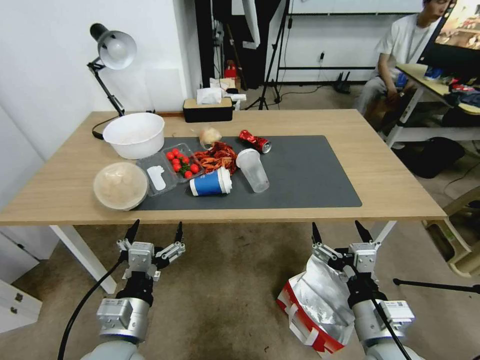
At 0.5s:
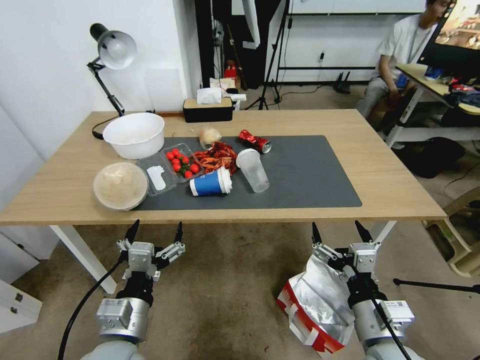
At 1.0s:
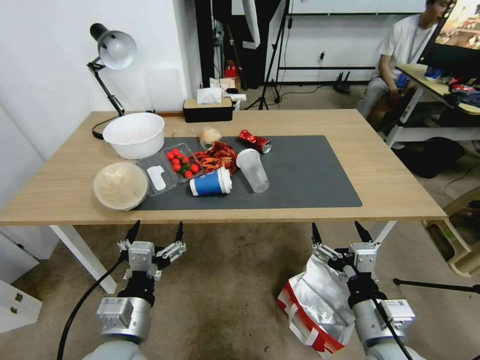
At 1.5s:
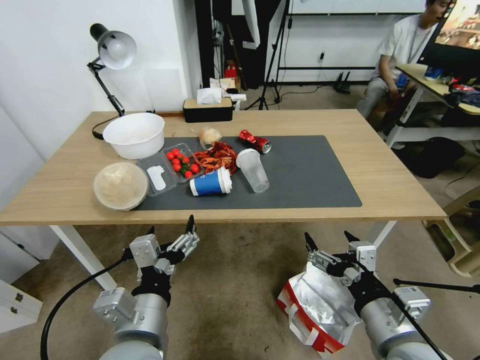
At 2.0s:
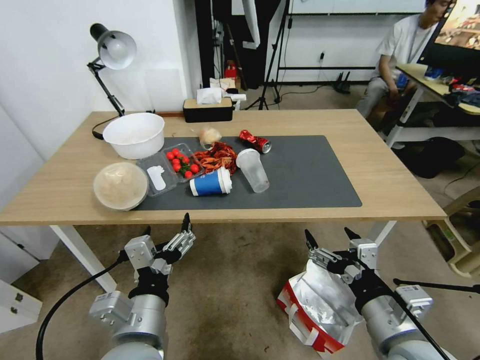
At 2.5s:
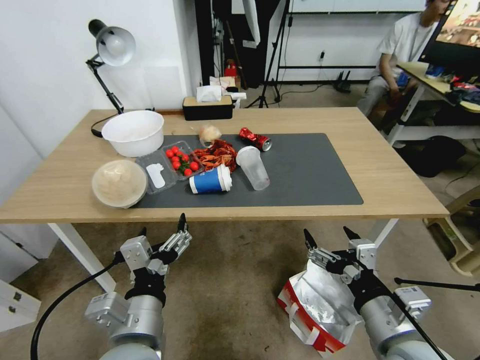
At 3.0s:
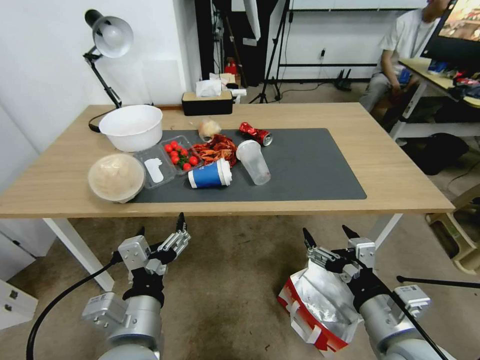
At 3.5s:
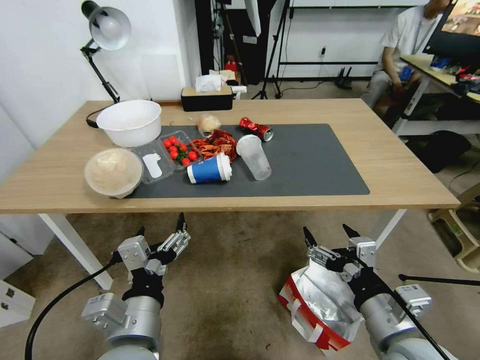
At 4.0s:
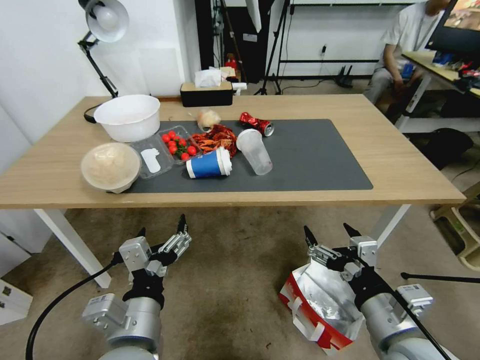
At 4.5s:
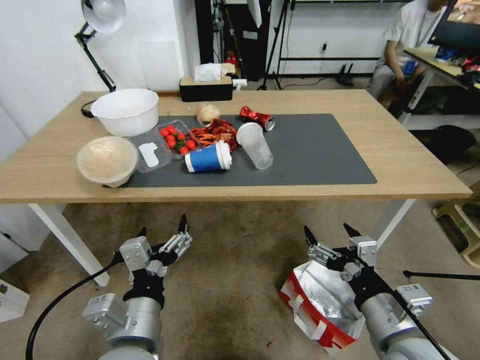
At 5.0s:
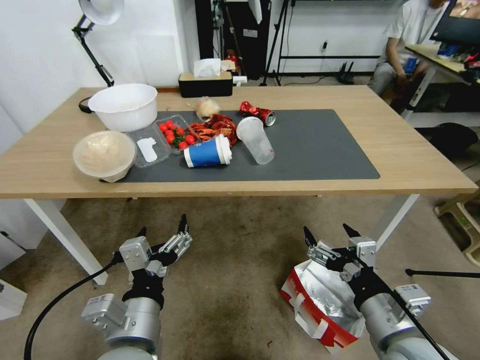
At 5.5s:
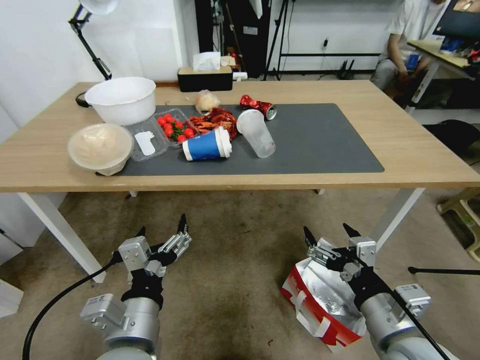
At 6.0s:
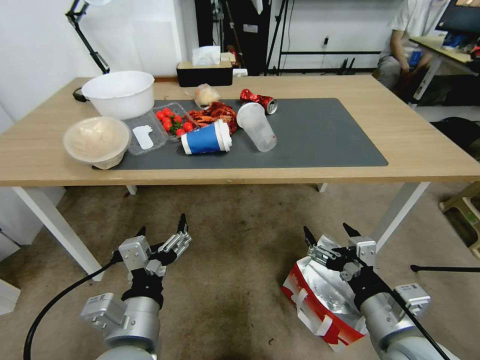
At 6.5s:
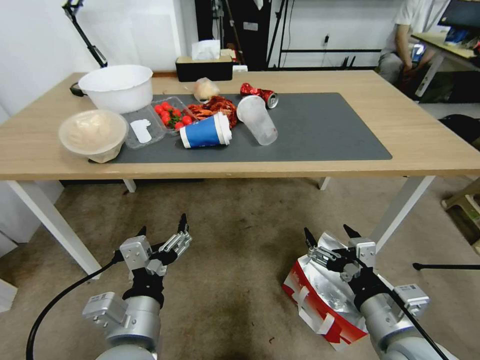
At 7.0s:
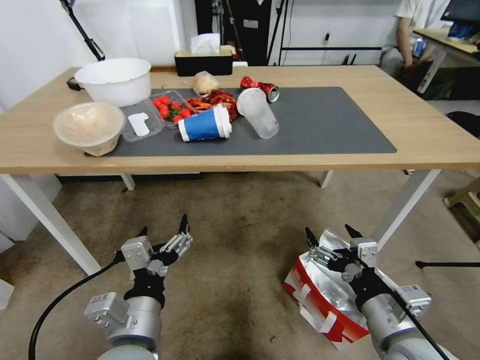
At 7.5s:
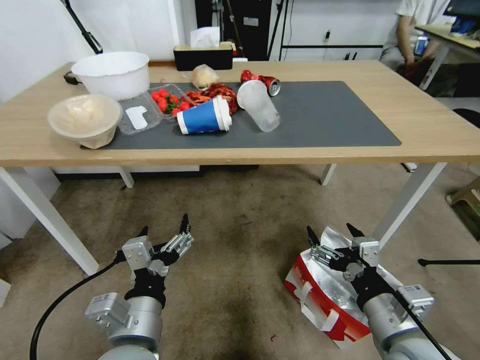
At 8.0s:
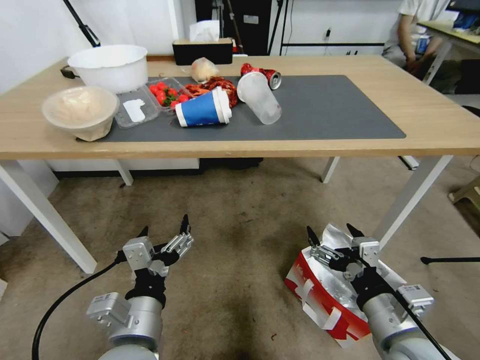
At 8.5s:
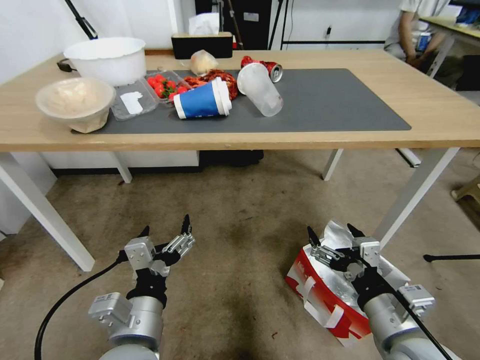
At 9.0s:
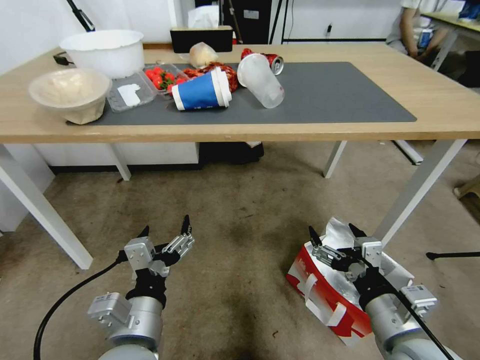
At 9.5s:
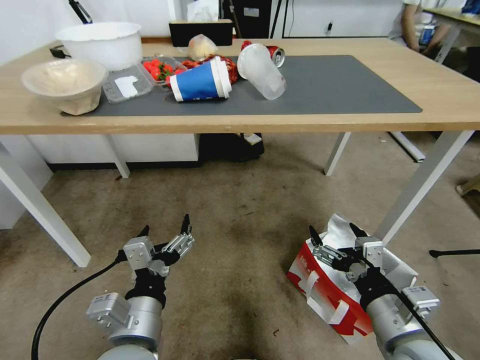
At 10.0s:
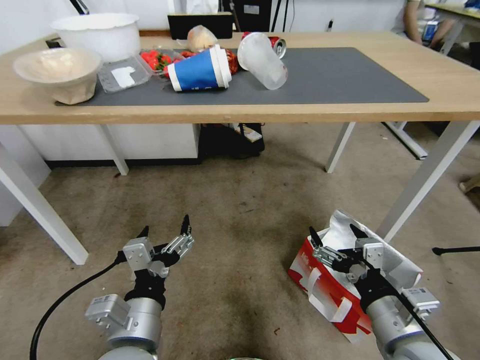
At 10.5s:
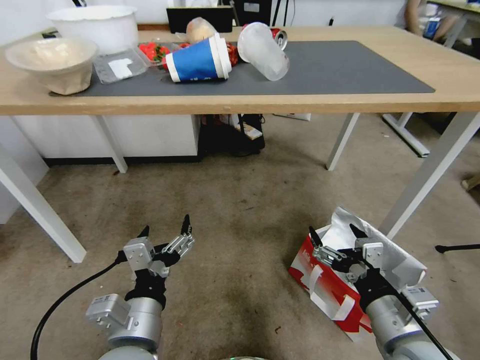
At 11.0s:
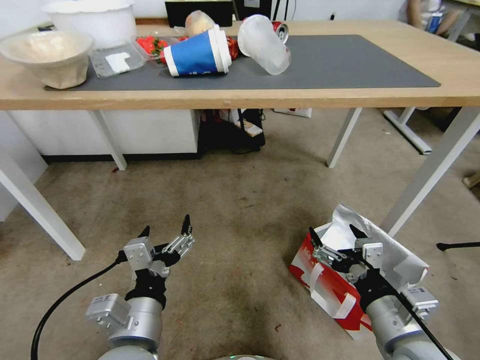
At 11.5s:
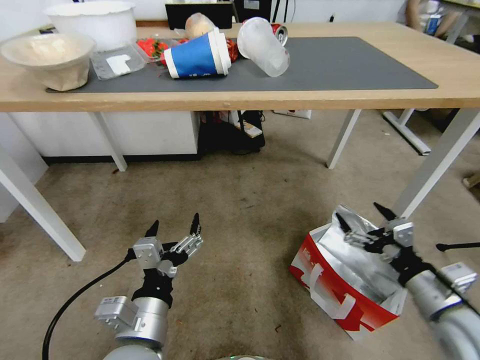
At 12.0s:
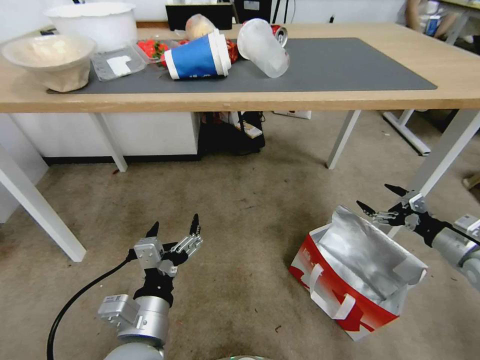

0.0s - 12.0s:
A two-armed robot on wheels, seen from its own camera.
Task of the whole recording: Pick up the food delivery bag from the floor and place it on the table.
10.0s - 12.0s: The right gripper travels to the right and forward by some 30 cm.

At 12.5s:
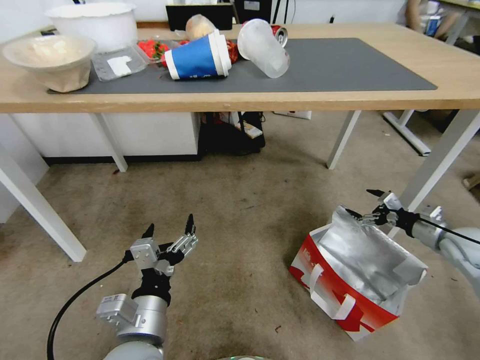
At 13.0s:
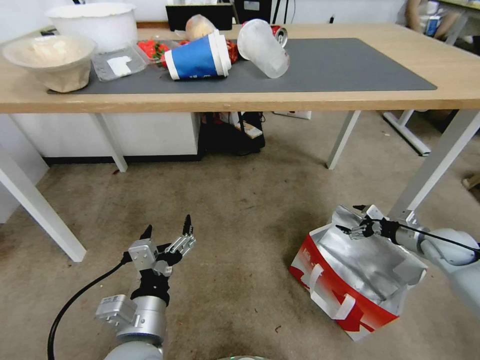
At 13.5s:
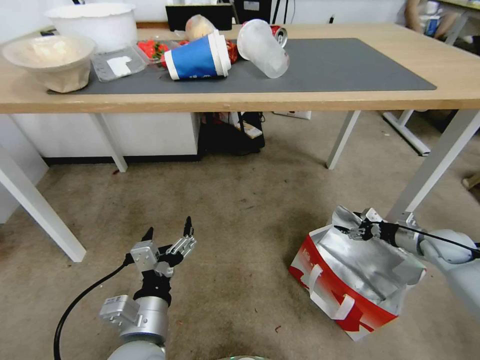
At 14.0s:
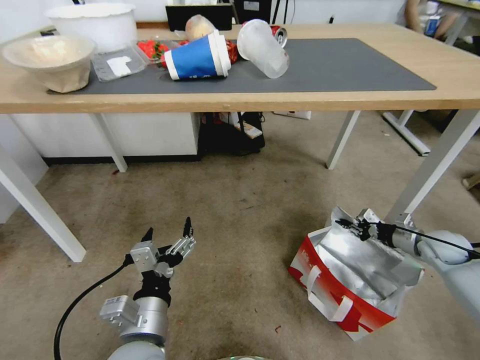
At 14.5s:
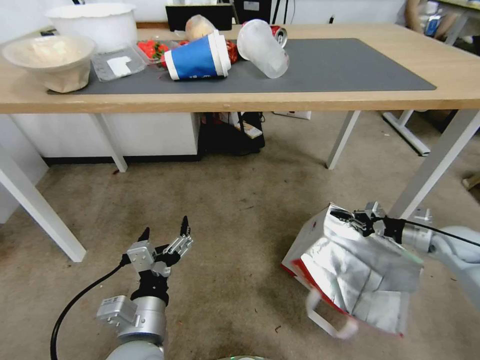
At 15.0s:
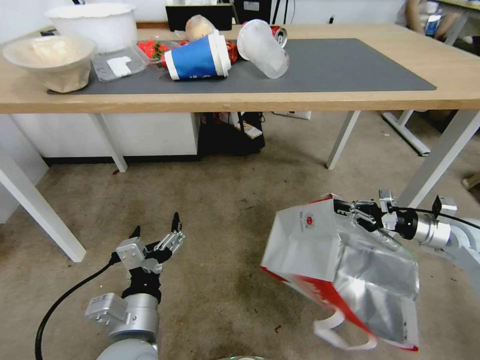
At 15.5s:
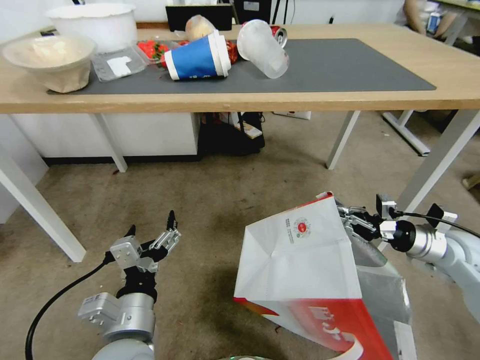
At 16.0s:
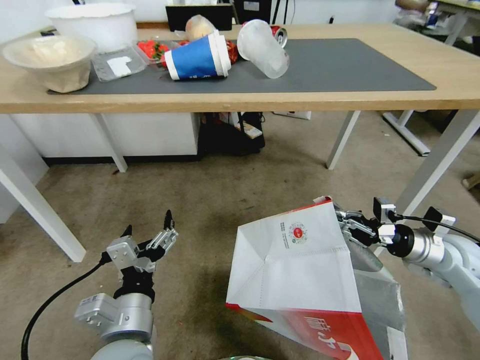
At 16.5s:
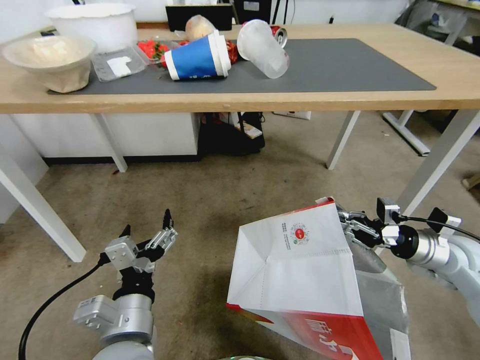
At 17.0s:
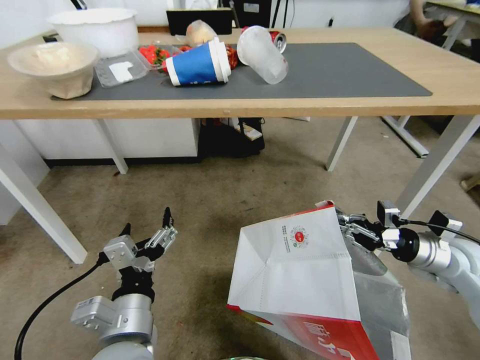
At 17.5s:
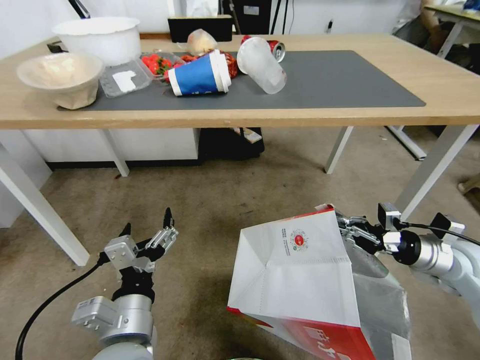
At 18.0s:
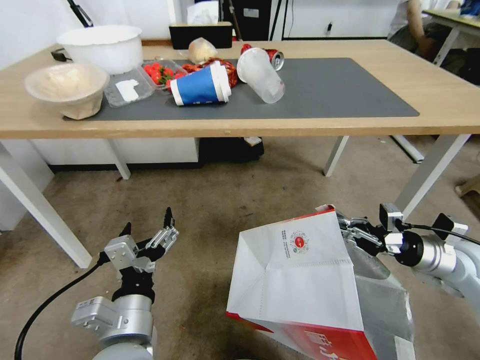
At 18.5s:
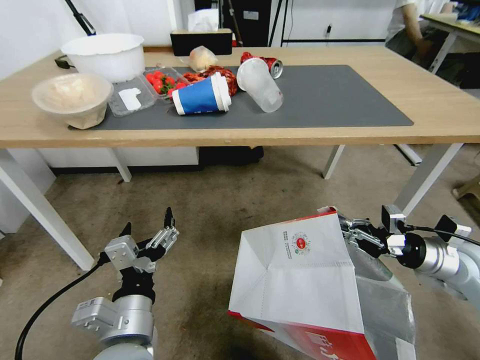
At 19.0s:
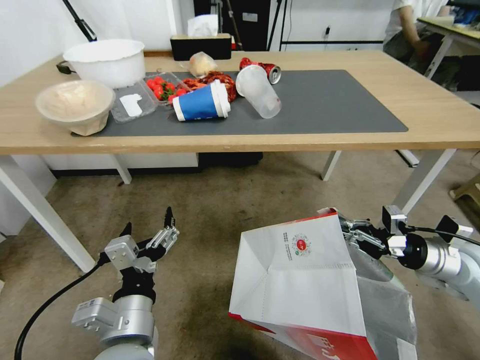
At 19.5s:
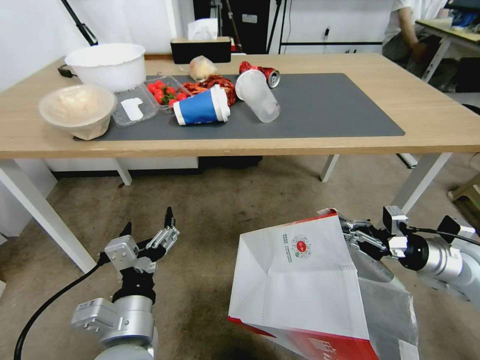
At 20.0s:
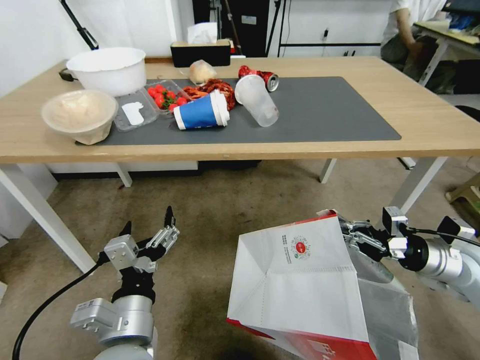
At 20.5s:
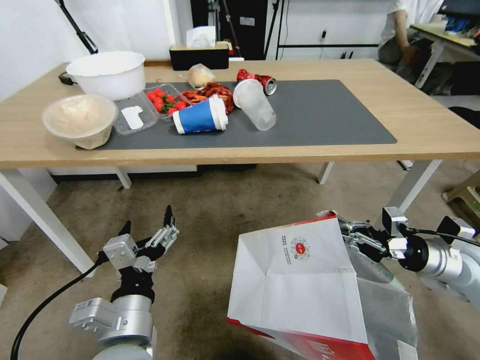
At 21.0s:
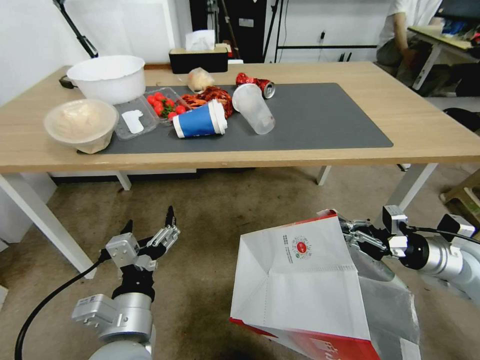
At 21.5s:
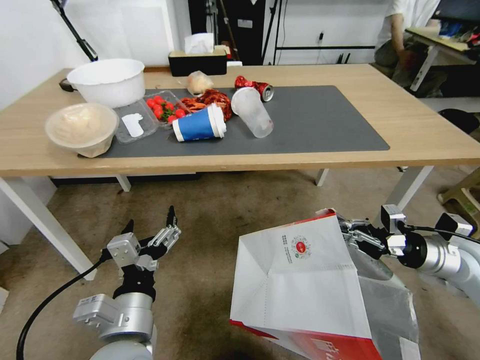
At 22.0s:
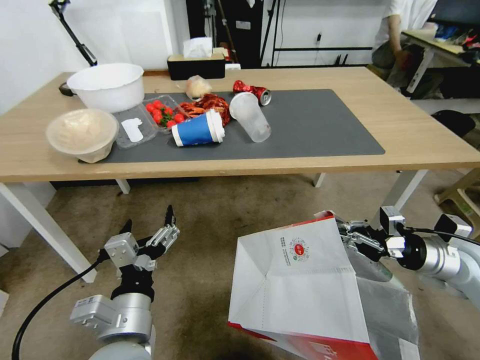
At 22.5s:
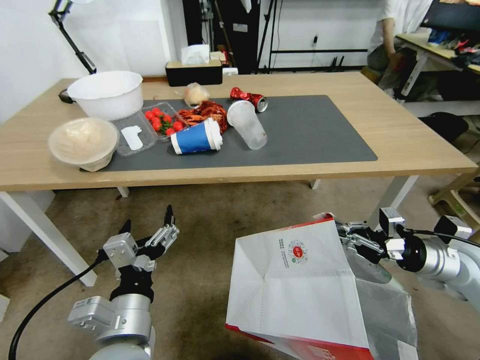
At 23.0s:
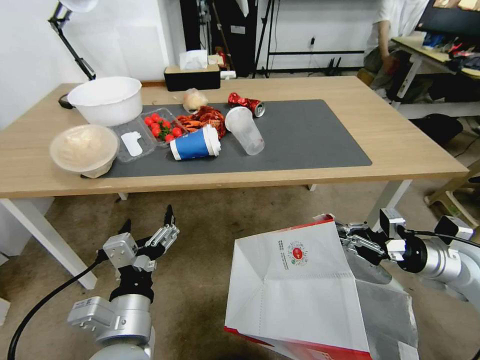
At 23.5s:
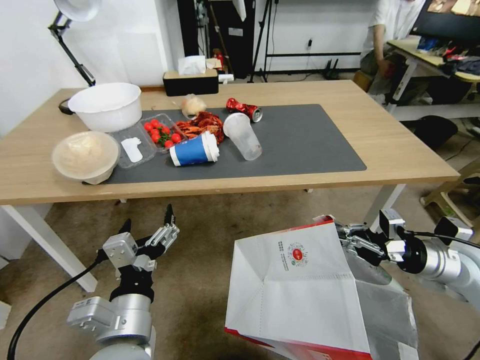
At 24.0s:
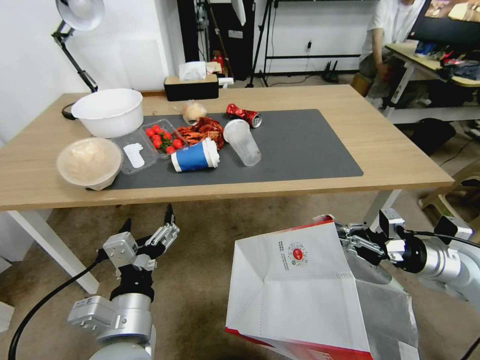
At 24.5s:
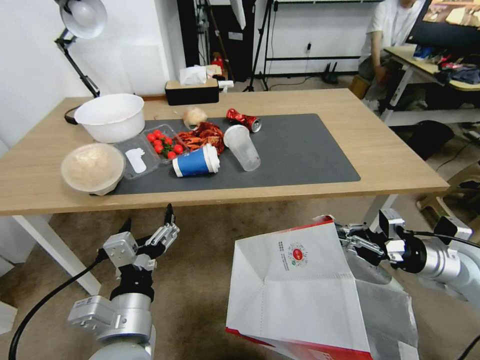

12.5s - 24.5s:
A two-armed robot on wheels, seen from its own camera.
Task of the whole recording: Pick up the food delivery bag from the floor and place it on the table.
12.5s - 14.5s: The right gripper closes up.
14.5s - 16.5s: The right gripper moves to the left, backward and upward, some 10 cm.

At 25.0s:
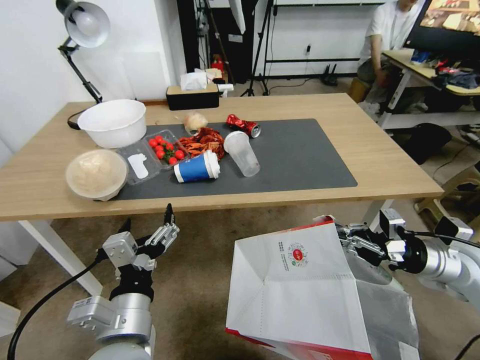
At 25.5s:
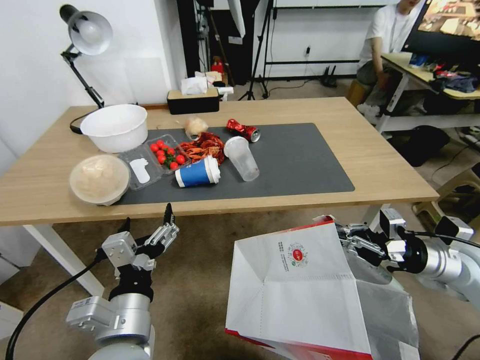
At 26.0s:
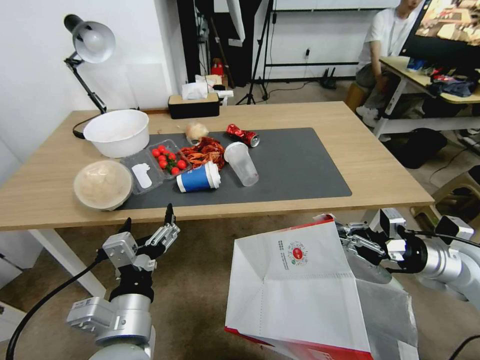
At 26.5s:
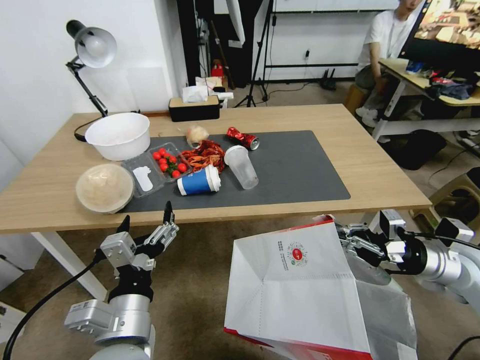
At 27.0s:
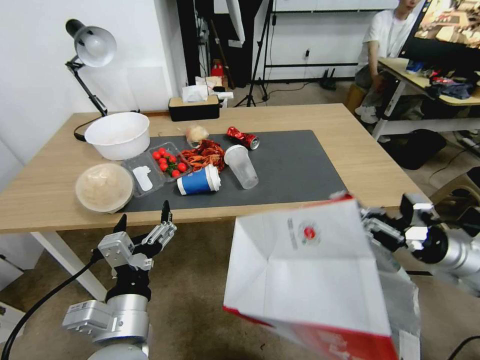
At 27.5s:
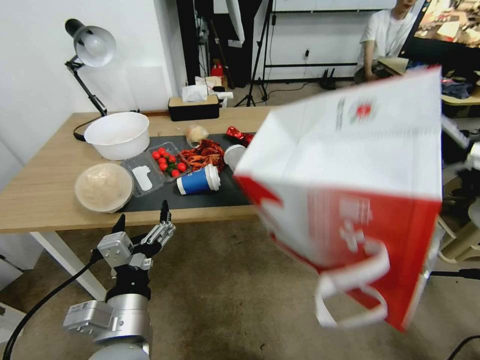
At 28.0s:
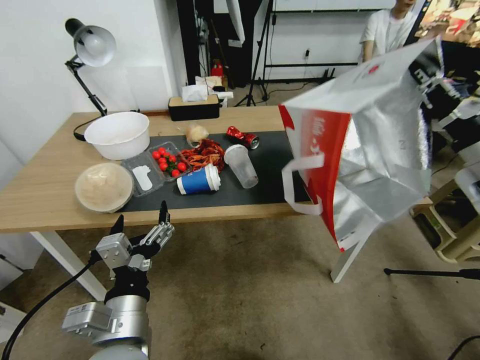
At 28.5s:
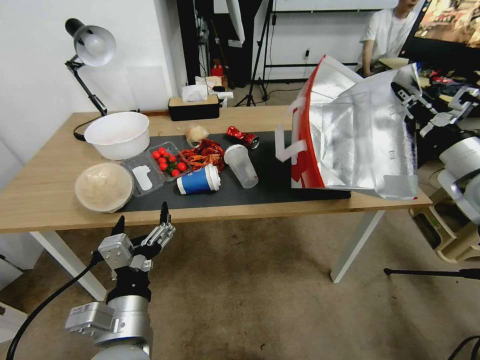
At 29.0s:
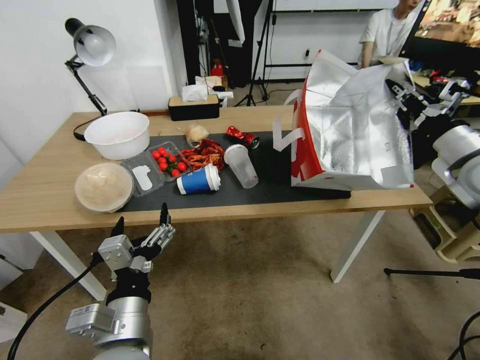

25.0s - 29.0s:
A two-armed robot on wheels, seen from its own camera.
Task of the whole recording: Pick up the food delivery bag from the floor and place it on the table.
27.0s - 29.0s: The right gripper goes some 15 cm upward and forward.
